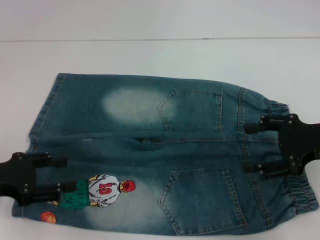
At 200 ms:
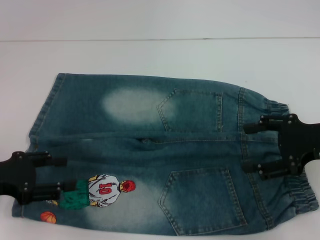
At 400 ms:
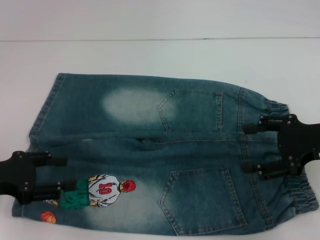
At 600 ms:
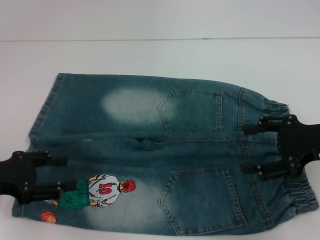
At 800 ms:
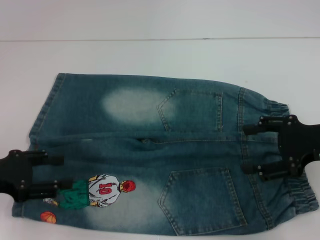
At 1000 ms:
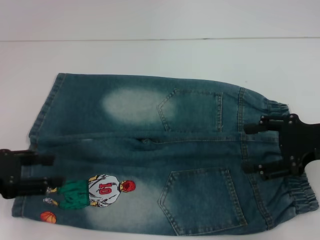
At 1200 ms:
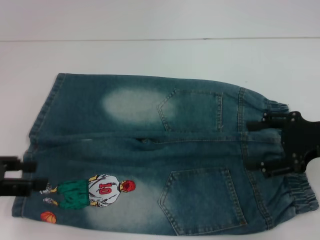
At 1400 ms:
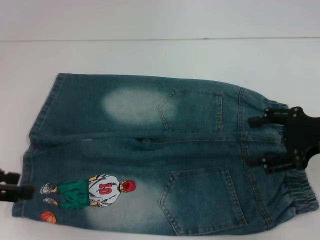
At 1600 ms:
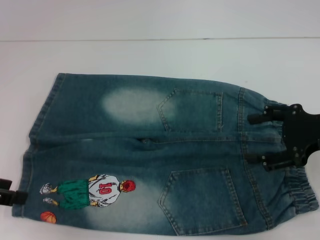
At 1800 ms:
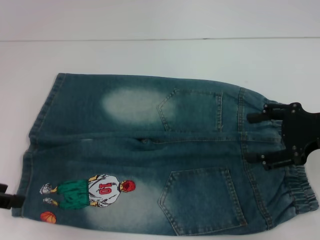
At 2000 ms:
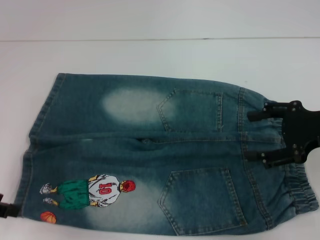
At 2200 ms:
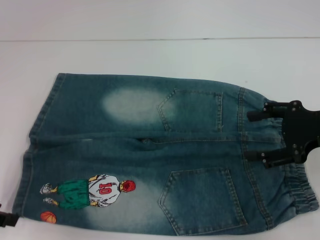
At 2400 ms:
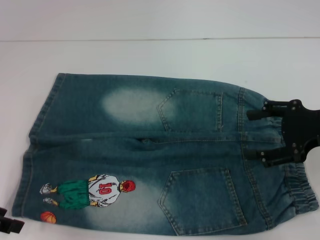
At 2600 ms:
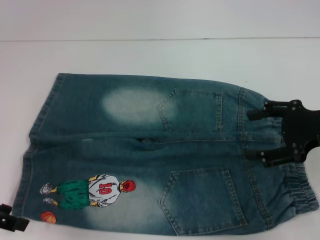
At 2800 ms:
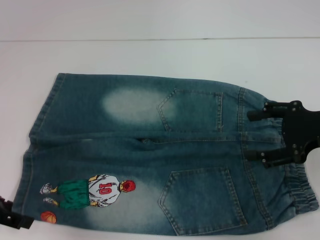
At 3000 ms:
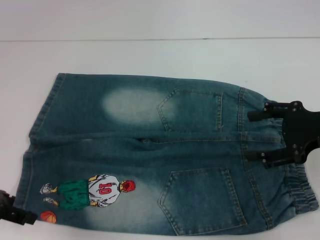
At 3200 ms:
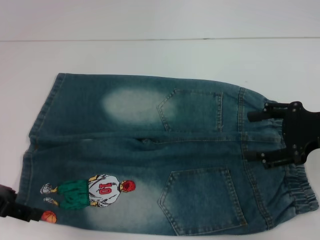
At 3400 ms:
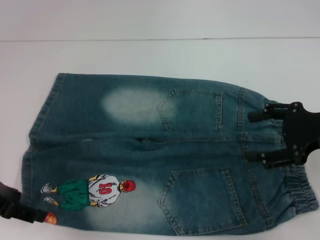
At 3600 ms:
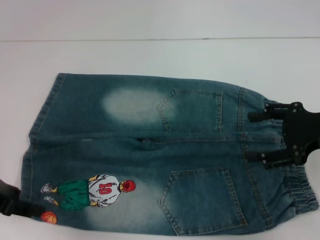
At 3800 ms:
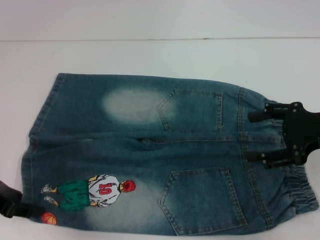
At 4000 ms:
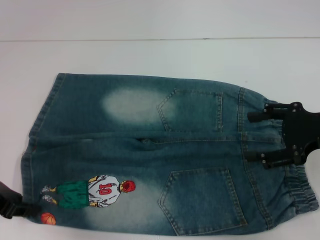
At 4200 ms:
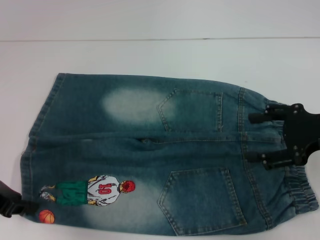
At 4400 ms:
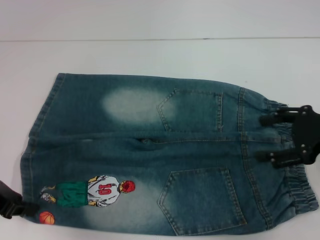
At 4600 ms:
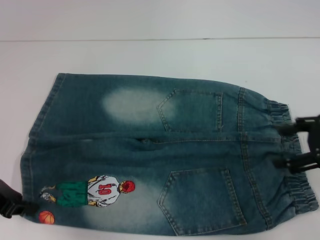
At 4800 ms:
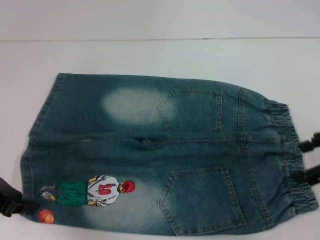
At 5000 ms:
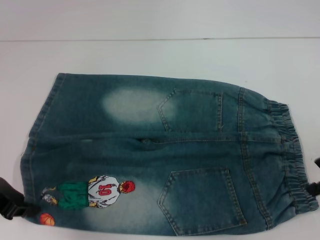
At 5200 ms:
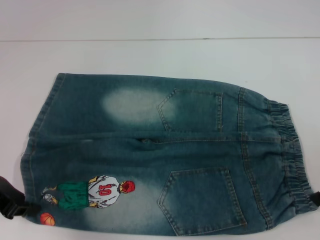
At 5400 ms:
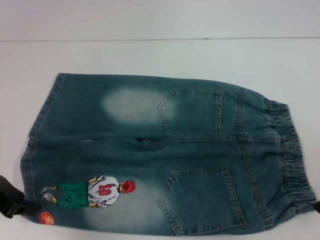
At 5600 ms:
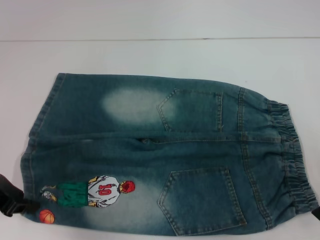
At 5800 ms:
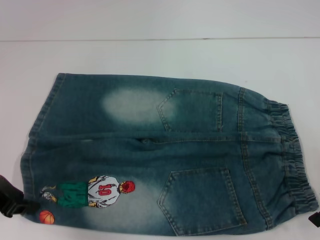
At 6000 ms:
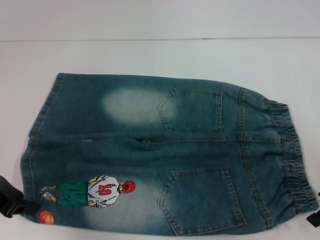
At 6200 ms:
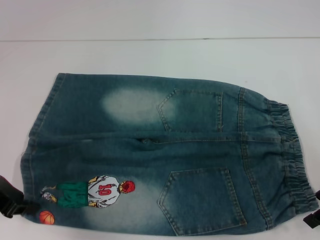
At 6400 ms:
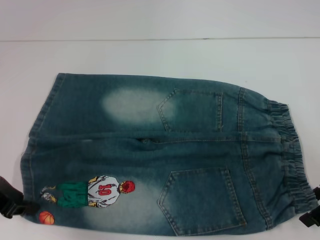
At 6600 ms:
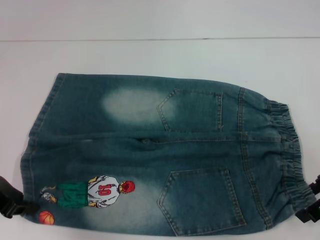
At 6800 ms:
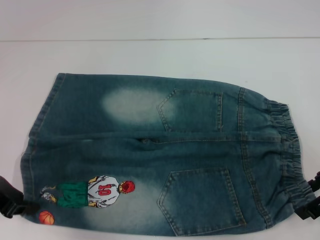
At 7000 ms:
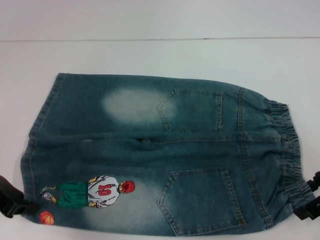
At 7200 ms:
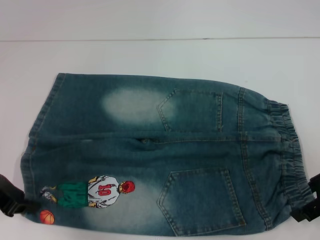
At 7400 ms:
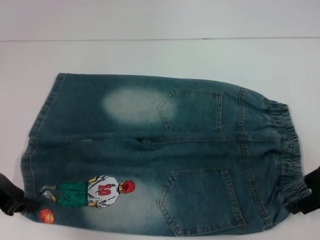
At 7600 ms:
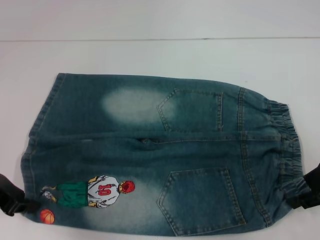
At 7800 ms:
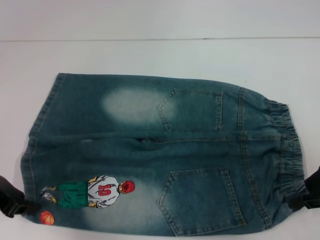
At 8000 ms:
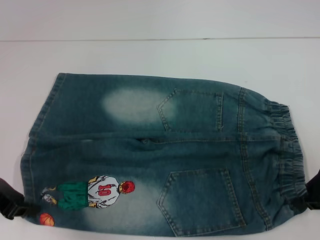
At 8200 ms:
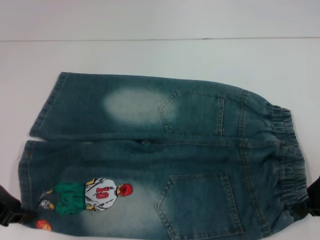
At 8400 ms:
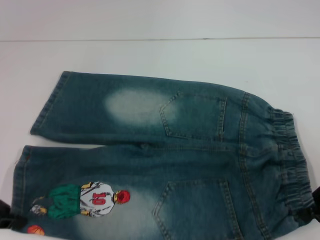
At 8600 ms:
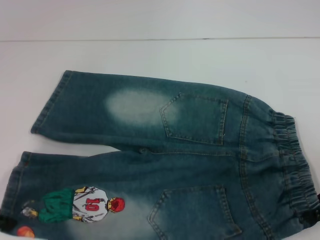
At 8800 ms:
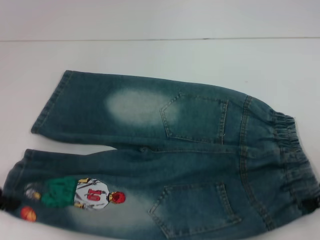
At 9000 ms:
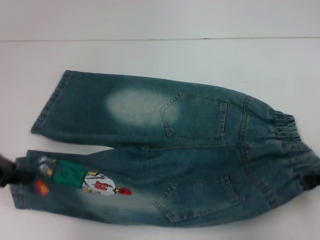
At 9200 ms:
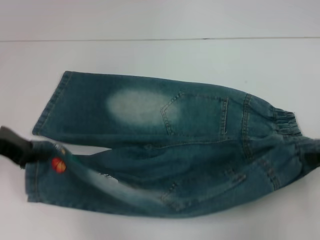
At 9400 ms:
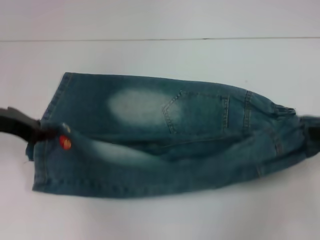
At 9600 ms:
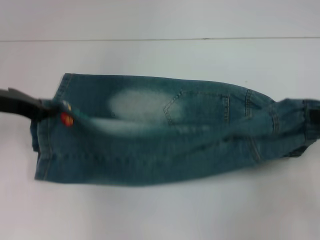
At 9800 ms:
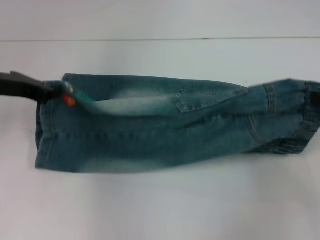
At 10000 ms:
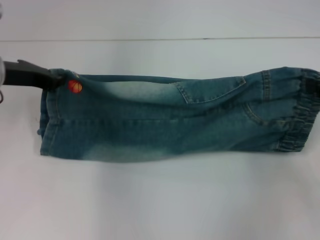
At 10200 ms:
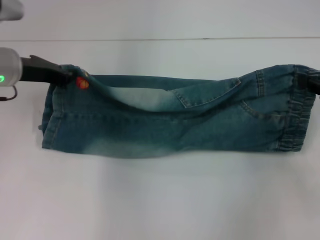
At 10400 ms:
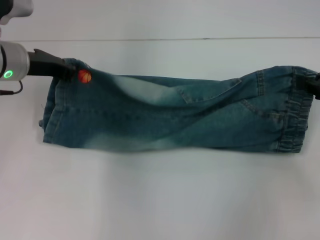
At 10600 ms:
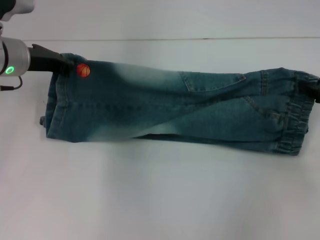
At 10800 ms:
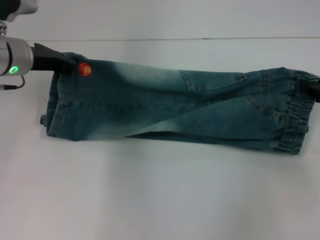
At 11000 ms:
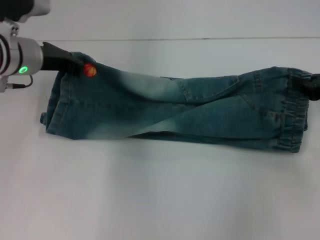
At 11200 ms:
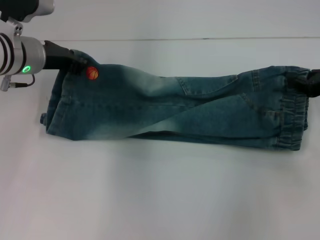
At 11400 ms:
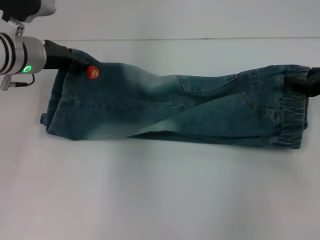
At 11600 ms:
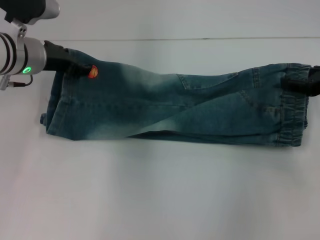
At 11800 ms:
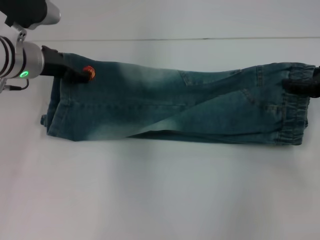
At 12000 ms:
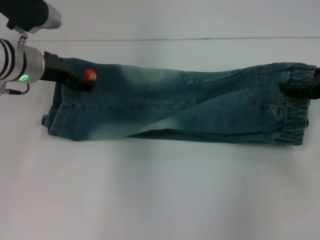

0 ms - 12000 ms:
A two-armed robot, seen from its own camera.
Step, 0 ms - 4400 ms: Grab the lower left pant leg with your left hand.
Step, 4600 ms - 8200 ms: Hold the lower right waistband with your right hand.
0 ms - 1600 ms: The left gripper moves upward, about 5 cm.
1600 ms - 3000 ms: There are only small adjustments of the grippers.
3000 ms - 4400 ms: The left gripper closes up.
6000 ms - 7600 ms: The right gripper closes up.
7600 ms - 9000 ms: The right gripper ends up roughly 5 cm from where it was, and closes up.
9000 ms - 10400 ms: The right gripper shifts roughly 10 cm forward. Meanwhile the left gripper moves forward and to the right, approximately 15 cm.
10400 ms - 12000 ms: The right gripper opens its fingers. Meanwhile the left gripper opens.

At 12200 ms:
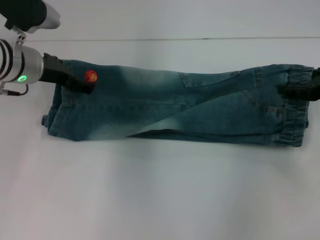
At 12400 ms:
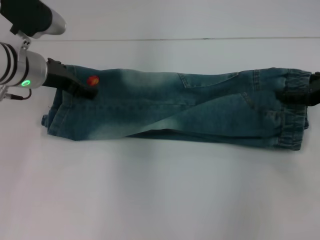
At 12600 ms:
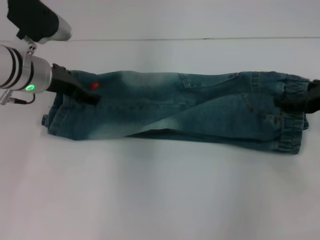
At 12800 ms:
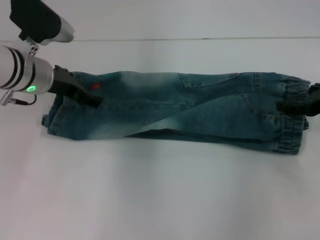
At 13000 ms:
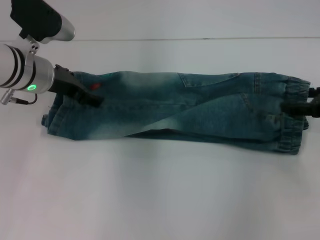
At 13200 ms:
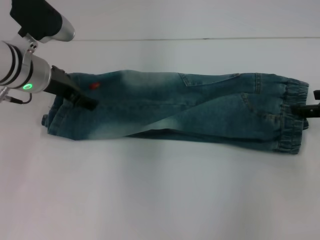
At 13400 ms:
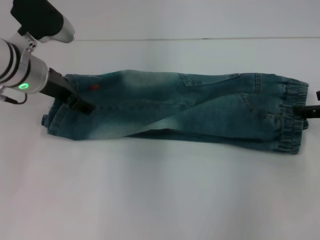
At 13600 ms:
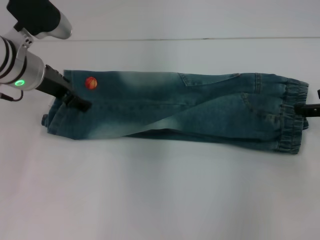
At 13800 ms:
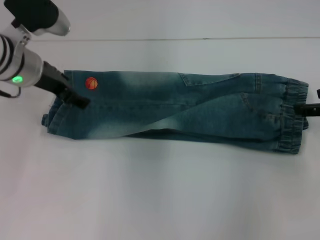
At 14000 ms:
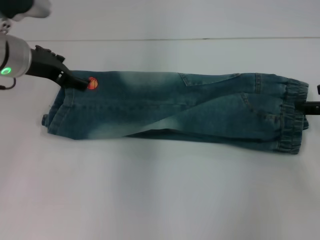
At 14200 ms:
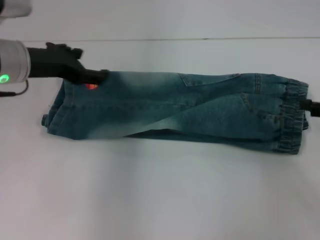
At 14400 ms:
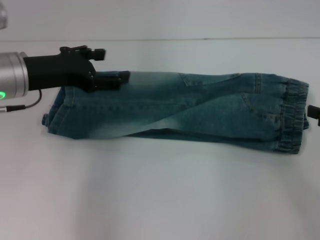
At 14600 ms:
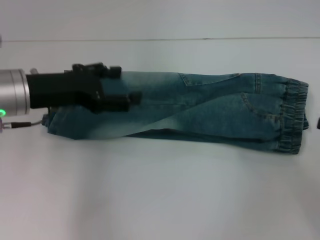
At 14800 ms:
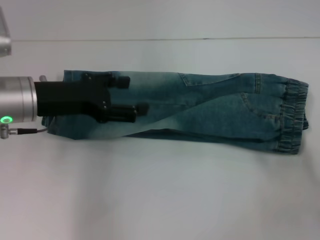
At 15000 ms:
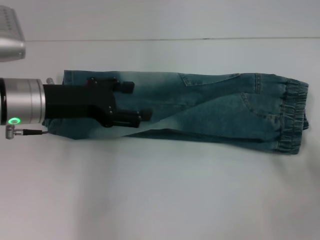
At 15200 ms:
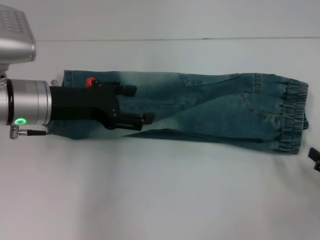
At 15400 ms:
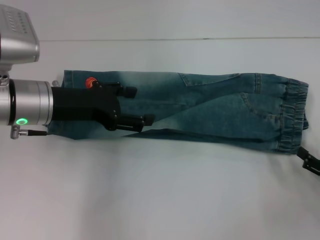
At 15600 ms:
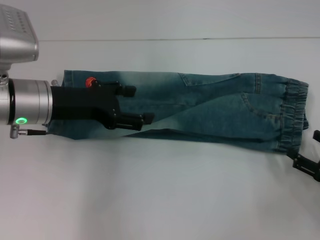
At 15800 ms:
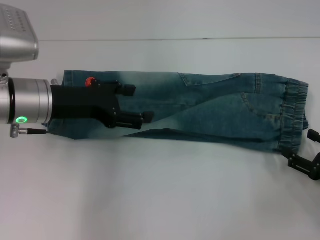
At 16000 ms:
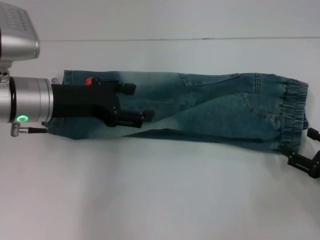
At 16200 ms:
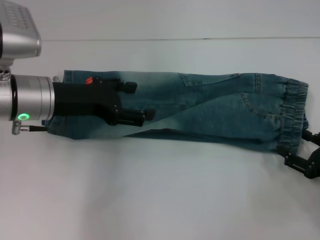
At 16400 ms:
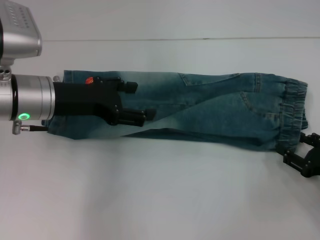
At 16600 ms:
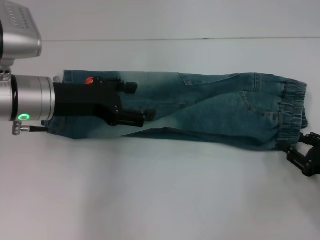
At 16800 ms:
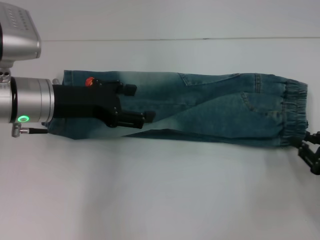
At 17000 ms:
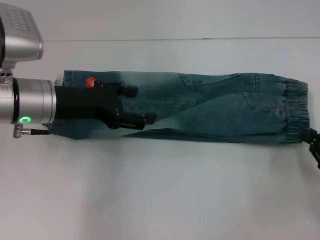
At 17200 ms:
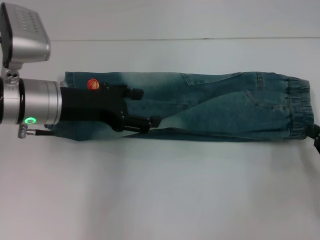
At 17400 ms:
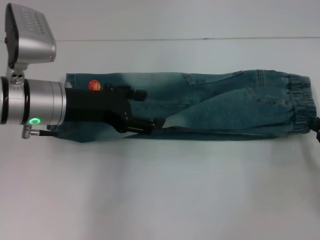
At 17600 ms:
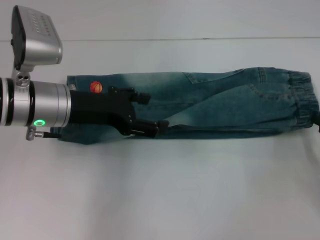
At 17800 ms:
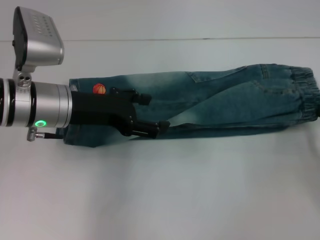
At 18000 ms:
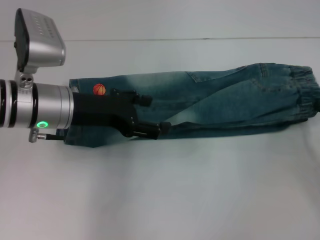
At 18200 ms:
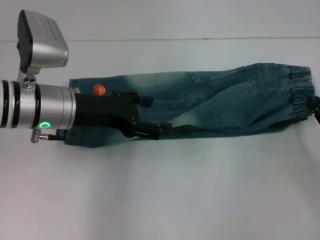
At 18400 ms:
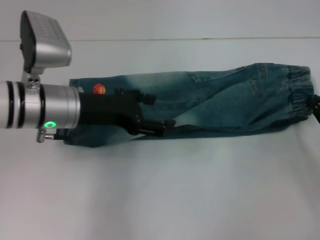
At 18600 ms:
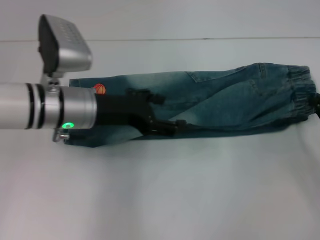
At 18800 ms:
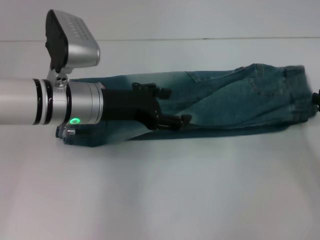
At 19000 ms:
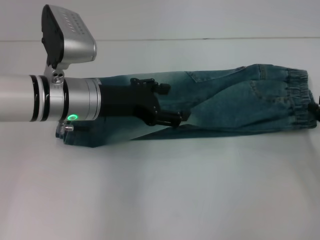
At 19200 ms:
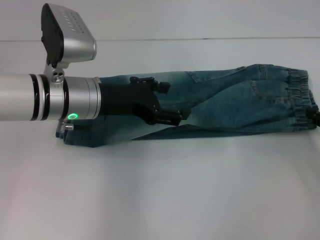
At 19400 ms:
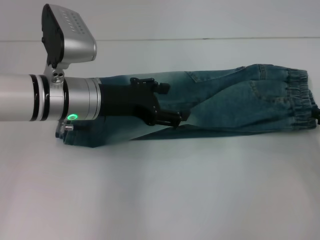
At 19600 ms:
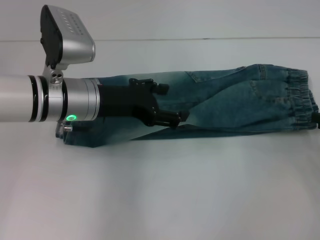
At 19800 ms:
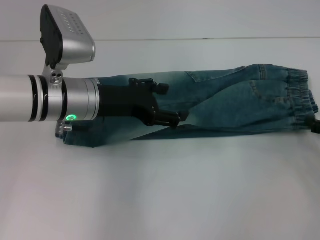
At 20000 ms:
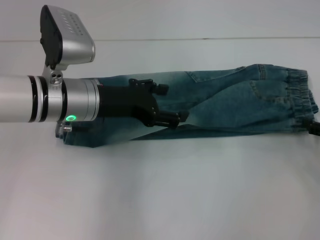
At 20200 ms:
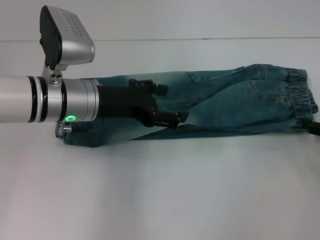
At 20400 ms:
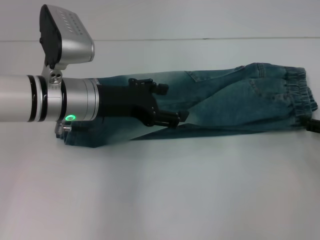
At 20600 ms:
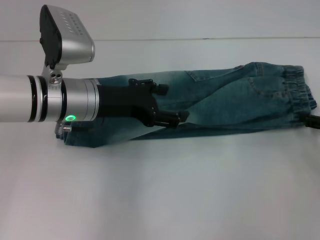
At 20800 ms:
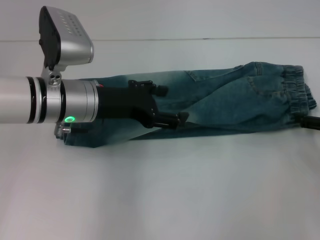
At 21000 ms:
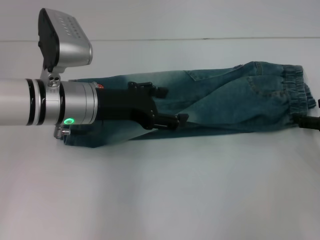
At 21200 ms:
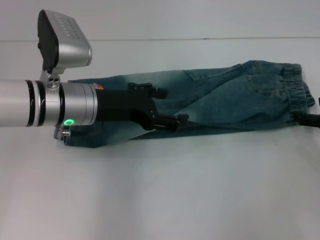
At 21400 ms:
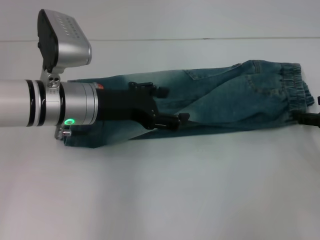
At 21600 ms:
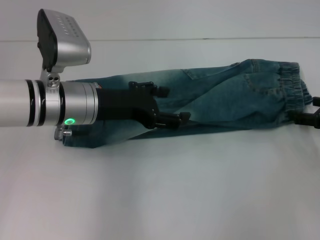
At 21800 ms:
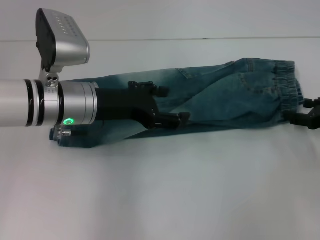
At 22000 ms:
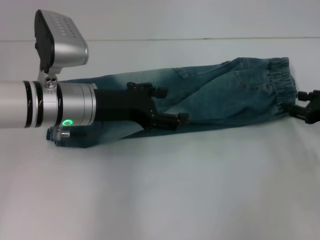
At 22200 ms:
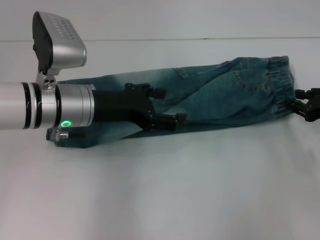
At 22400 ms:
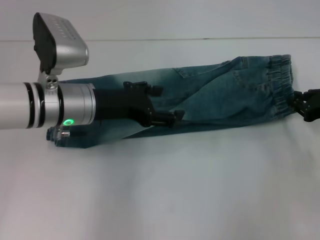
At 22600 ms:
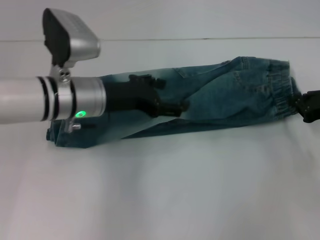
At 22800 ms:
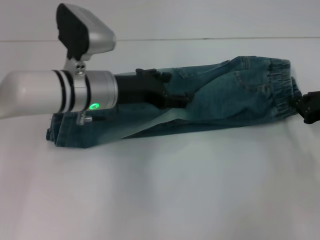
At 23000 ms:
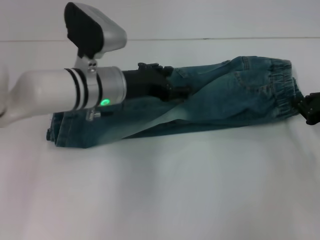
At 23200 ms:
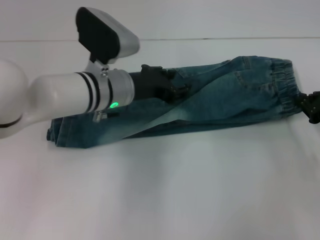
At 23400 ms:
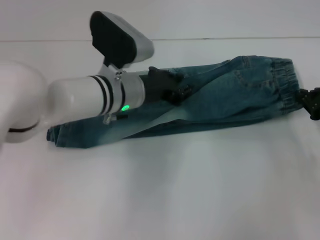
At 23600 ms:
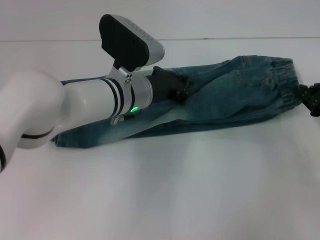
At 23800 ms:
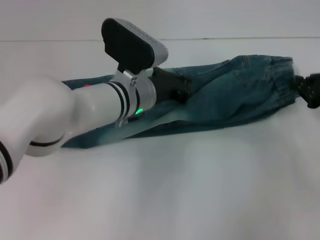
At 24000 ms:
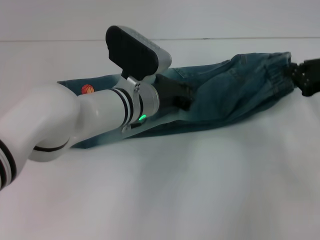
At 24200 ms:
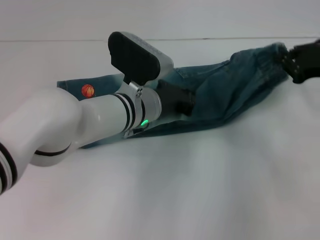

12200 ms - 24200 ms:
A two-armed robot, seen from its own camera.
Step, 13800 ms - 23000 ms: Grab the waistband with your right hand.
12200 ms - 13800 ms: The grippers make only small movements.
13800 ms - 15200 ms: The right gripper heads backward and downward, covering roughly 20 cm. The left gripper travels backward by about 5 cm.
15200 ms - 16600 ms: The right gripper ends up some 5 cm from where it was.
16600 ms - 18200 ms: The right gripper ends up some 5 cm from where it was, and closes.
18200 ms - 19800 ms: The right gripper opens up.
19800 ms - 21200 ms: The grippers make only small movements.
21200 ms - 22600 ms: The right gripper closes its fingers.
22600 ms - 24200 ms: The left gripper travels to the right by about 10 cm, and closes. The right gripper shifts roughly 5 cm upward.
